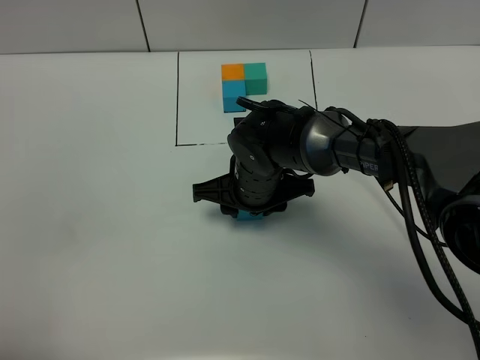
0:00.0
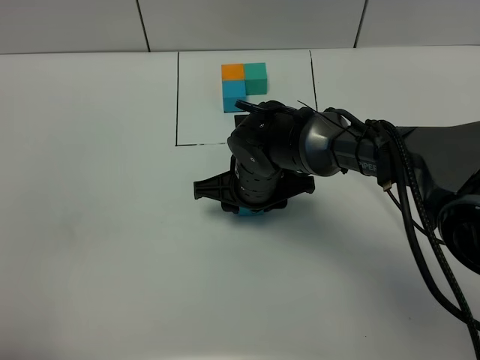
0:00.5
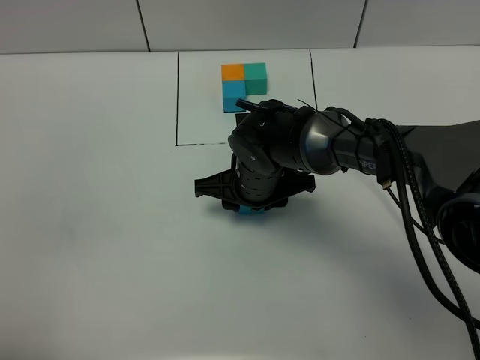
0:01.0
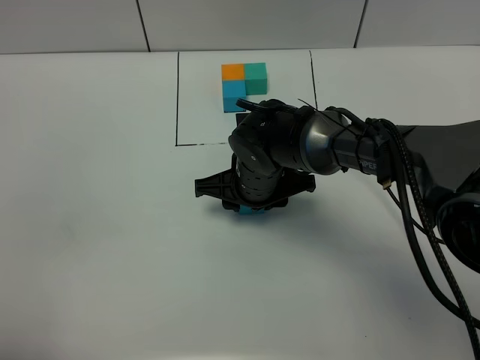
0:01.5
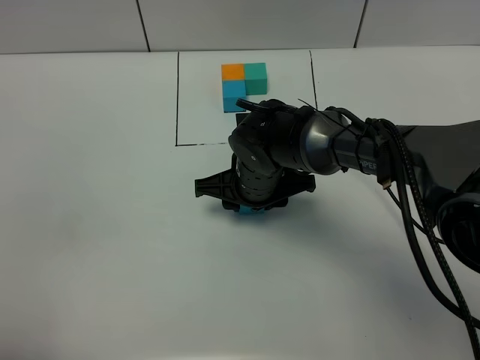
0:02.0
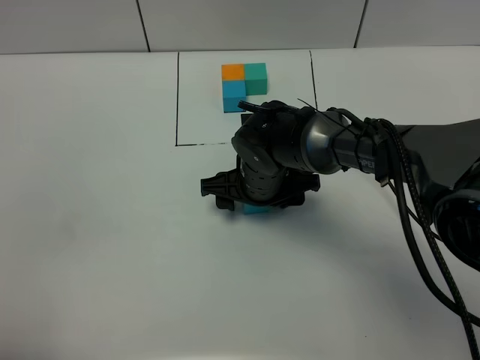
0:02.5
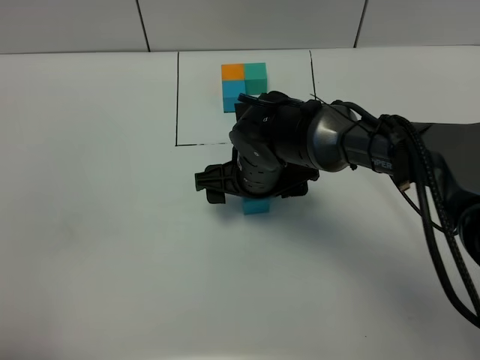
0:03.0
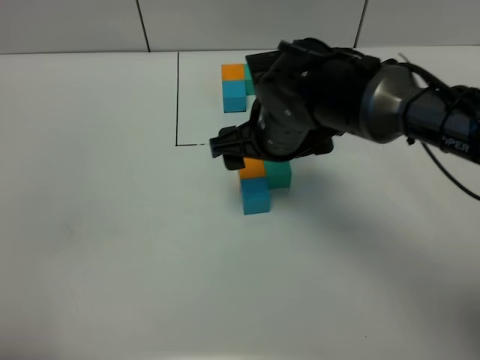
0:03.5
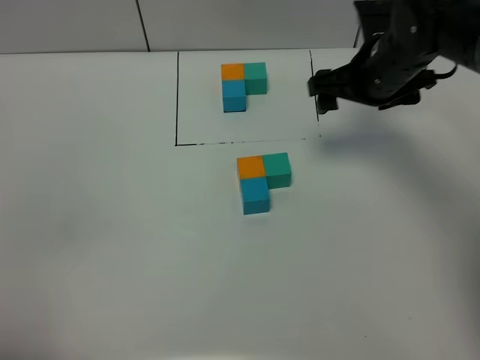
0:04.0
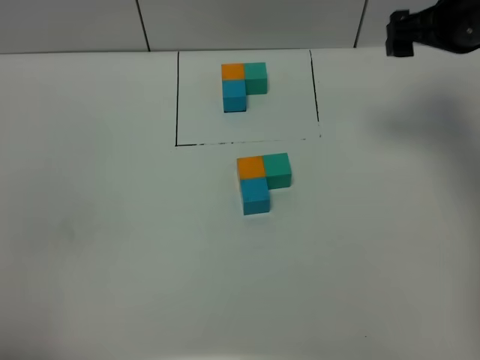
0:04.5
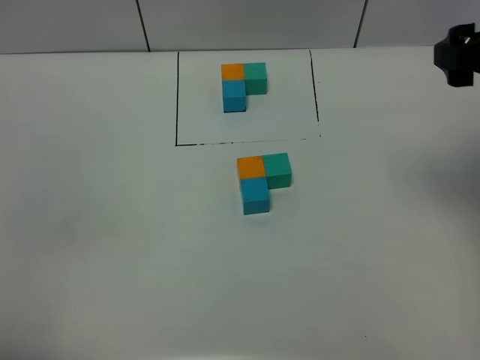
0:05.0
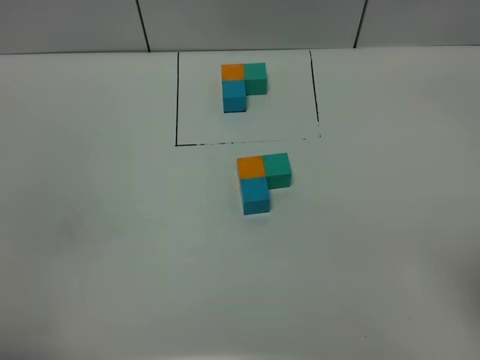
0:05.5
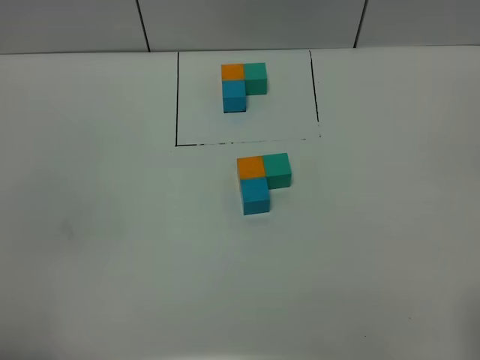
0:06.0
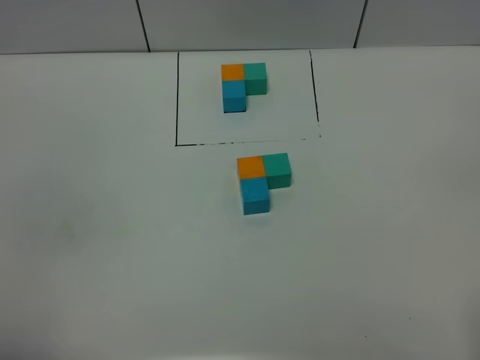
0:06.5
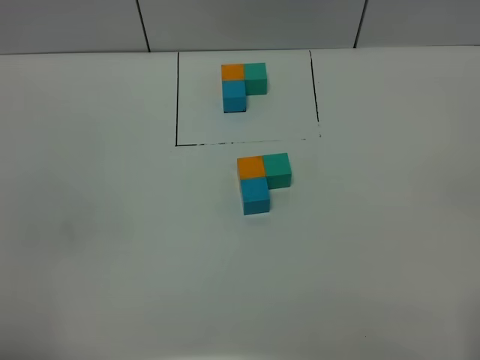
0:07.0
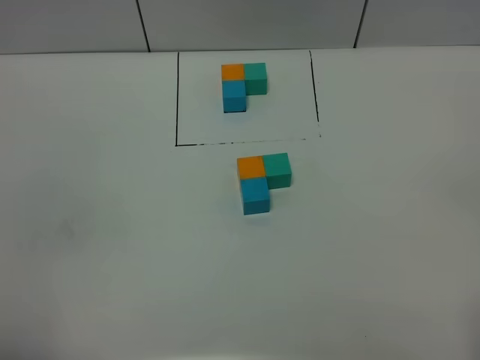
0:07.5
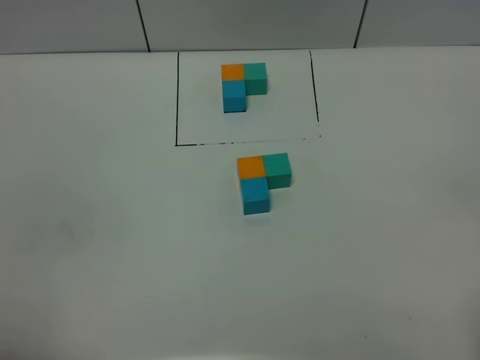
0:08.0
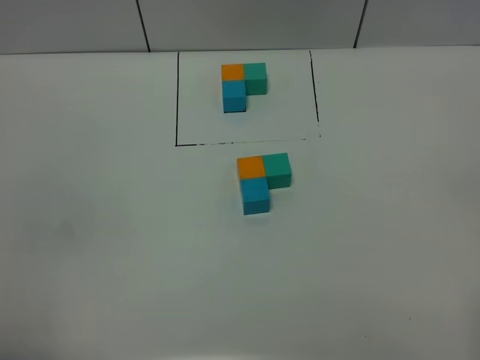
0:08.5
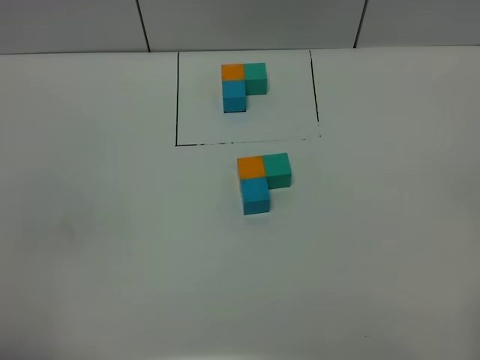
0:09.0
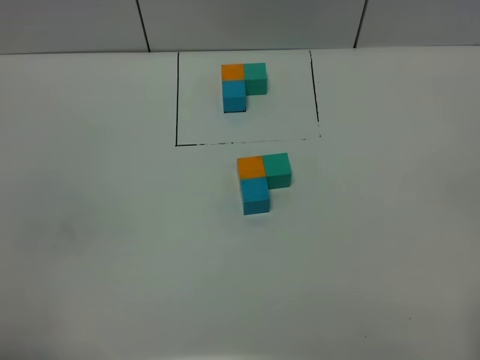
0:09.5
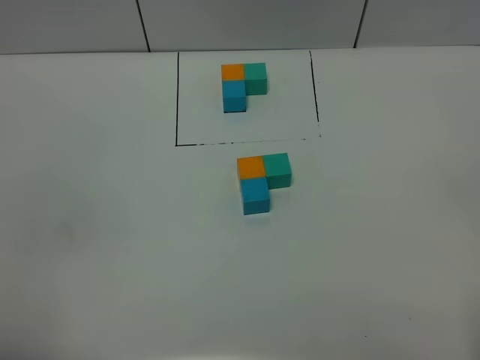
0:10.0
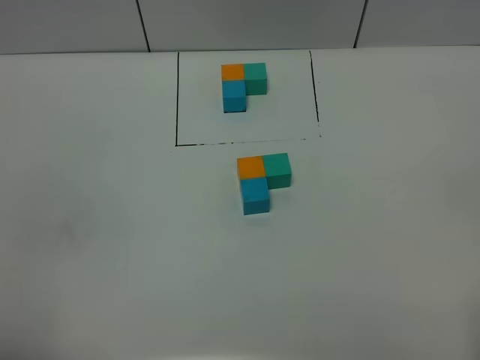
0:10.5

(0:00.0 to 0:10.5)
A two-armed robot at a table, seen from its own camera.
Task of the whole recording: According to the building block template in front, assemble the scattered blocks together.
Step, 0:00.0 - 0:02.5: Put the blue build block on the behind of the orange build block.
0:00.0 - 0:02.0: Neither gripper changes place.
0:02.0 - 0:04.0: The right gripper heads to the right, upward and forward, covering roughly 20 cm, and opens its fingers.
0:04.0 - 0:06.5: The right gripper is displaced backward by about 40 cm.

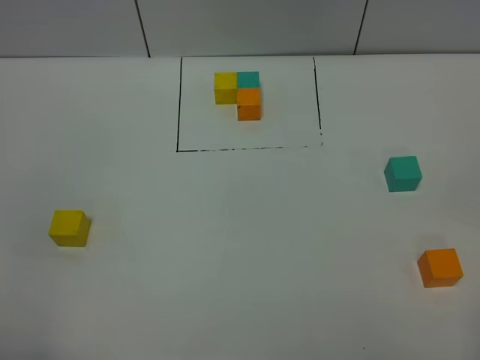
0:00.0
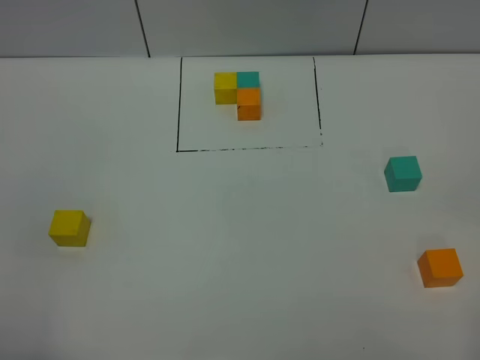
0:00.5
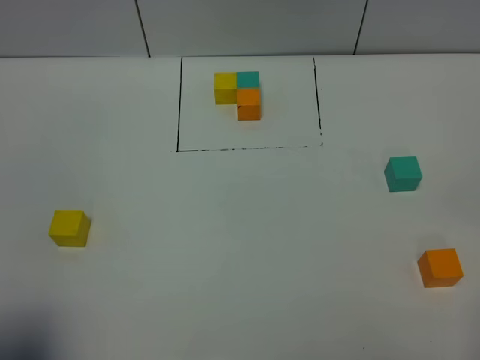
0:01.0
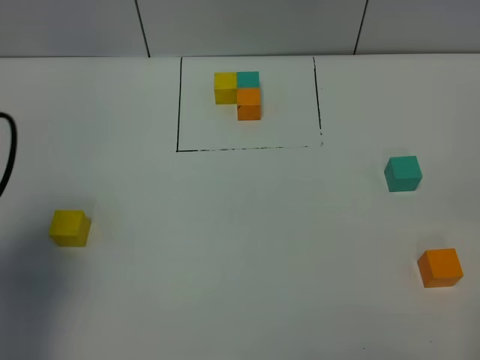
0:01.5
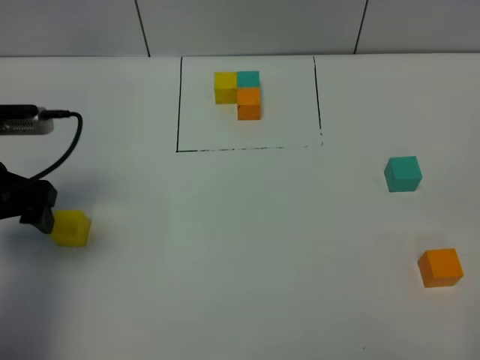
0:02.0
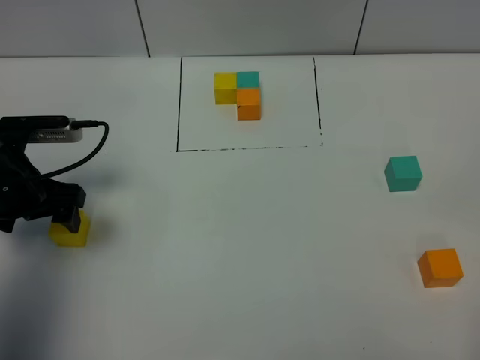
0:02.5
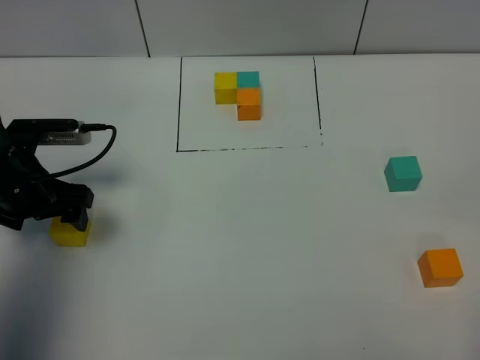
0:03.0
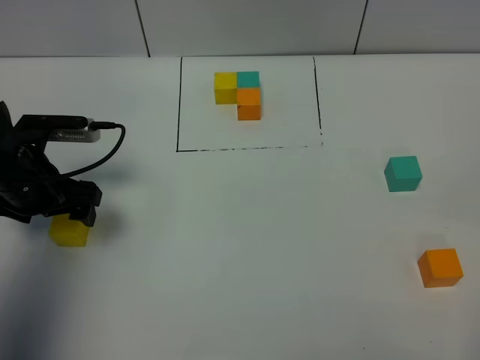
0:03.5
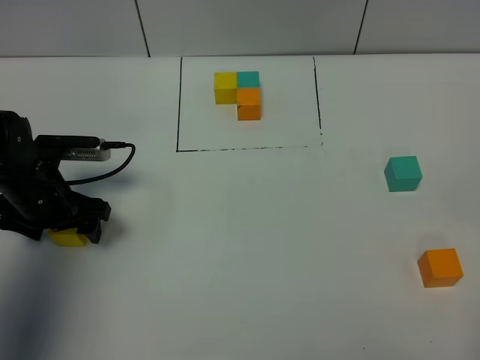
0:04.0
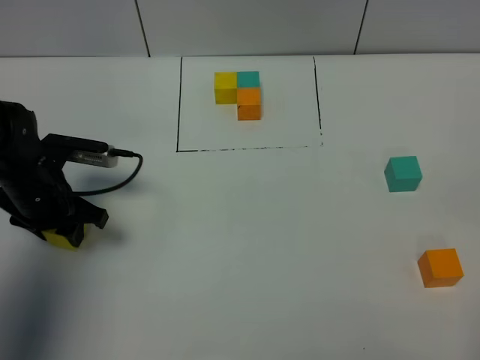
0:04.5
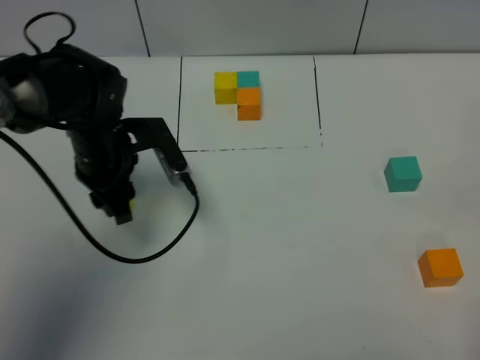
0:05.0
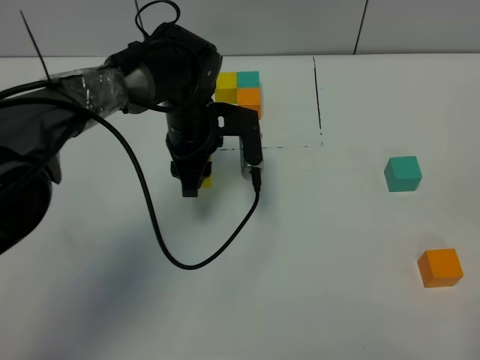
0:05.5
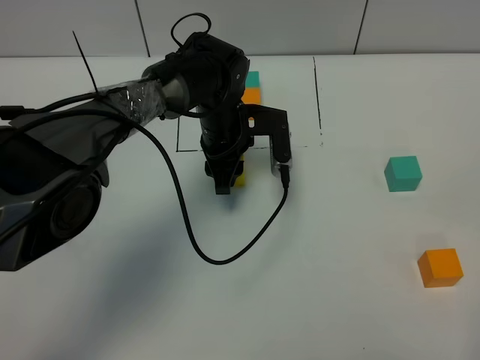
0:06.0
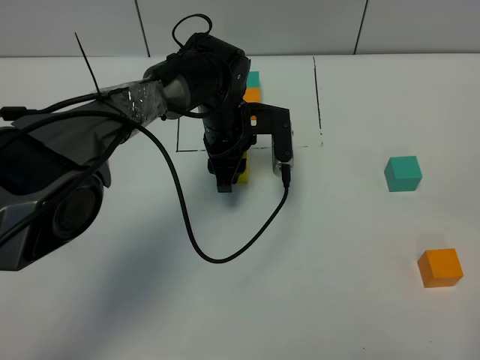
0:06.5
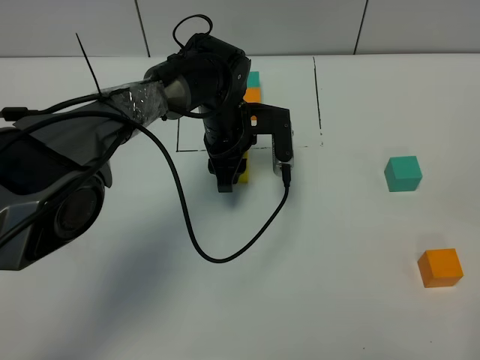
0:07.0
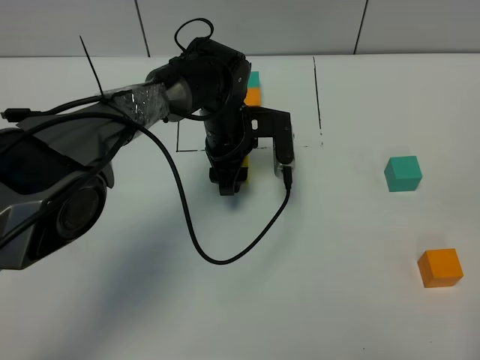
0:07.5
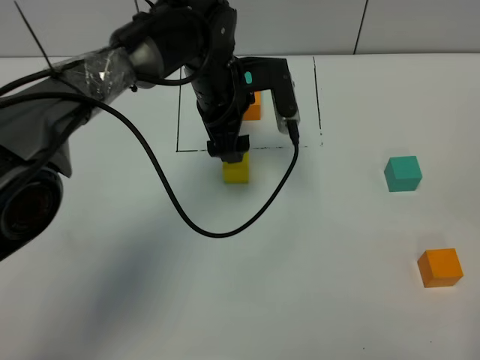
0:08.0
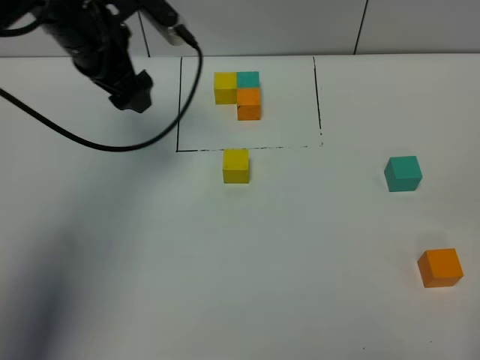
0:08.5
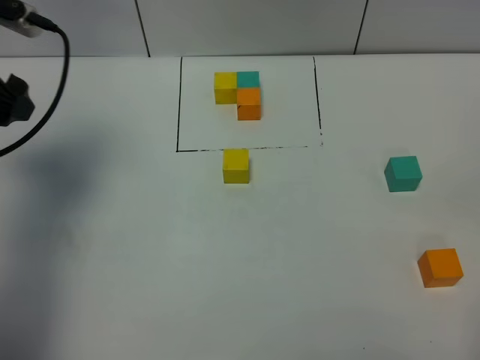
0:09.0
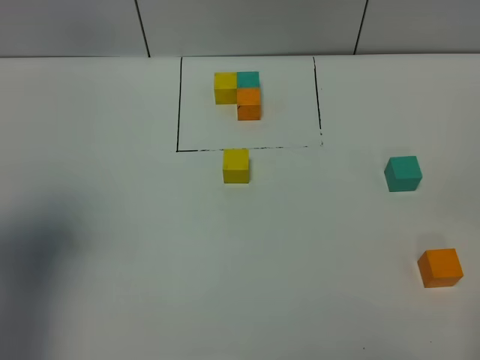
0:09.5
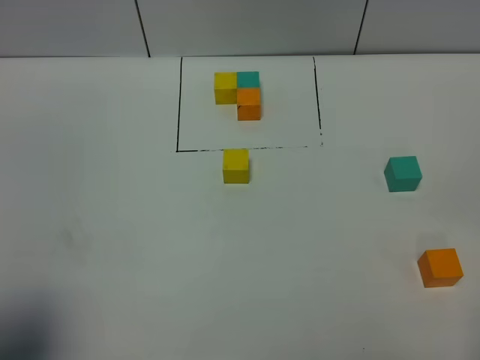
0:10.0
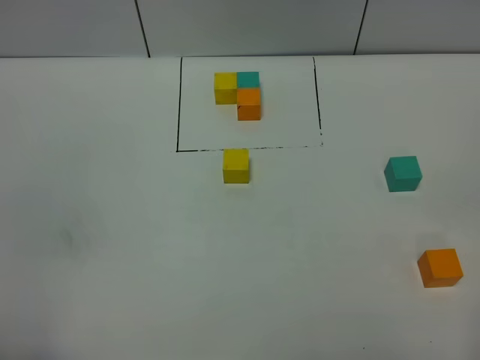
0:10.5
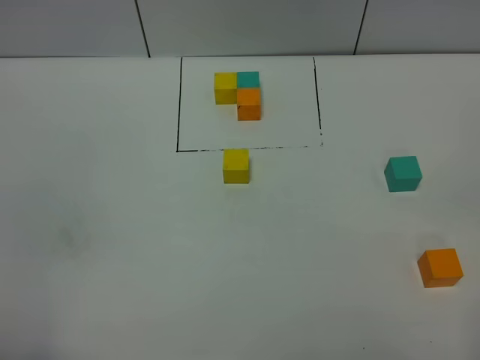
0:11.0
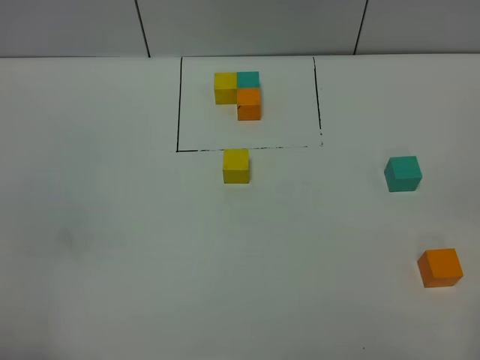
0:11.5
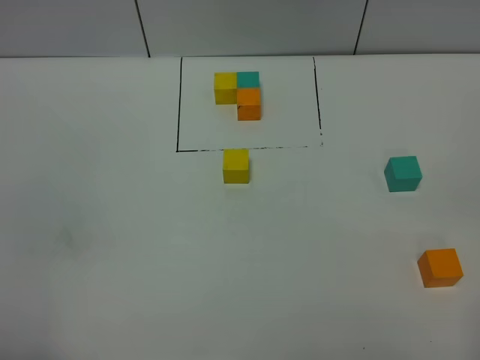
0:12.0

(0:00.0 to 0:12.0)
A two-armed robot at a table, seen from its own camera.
Task of the whole recording: According to the building block template in front, assemble the scattered blocks together.
Step, 0:00.0 - 0:07.0: Put the yellow build block in the center of the table.
0:00.0 - 0:02.0: The left gripper heads forward, covering approximately 30 cm.
0:02.0 - 0:04.0: The left gripper is displaced downward by roughly 10 cm.
0:04.0 - 0:06.0: The left gripper travels to the right and forward by approximately 25 cm, and closes.
0:06.0 - 0:08.0: The left gripper is displaced upward by about 10 cm, and opens.
0:08.0 - 0:10.0: The left gripper shifts about 40 cm backward and to the left.
0:10.0 - 0:12.0: The left gripper travels backward by some 5 cm.

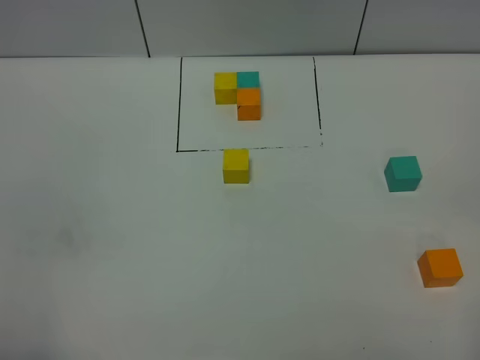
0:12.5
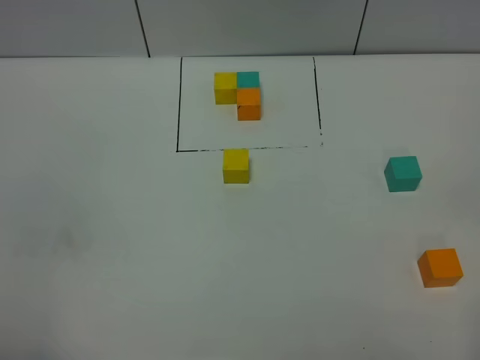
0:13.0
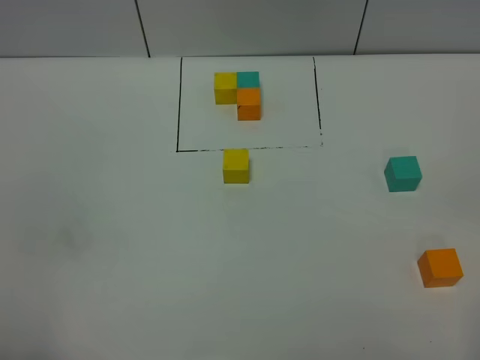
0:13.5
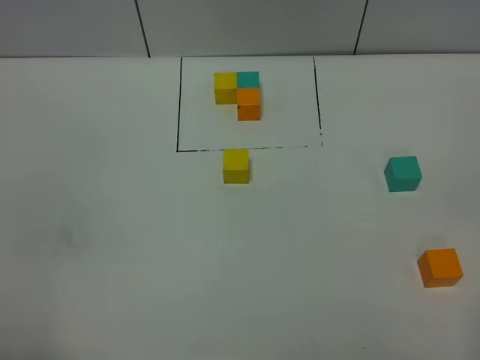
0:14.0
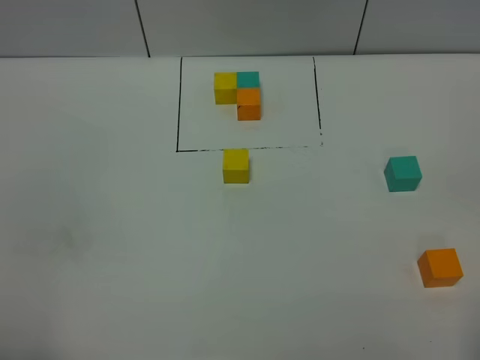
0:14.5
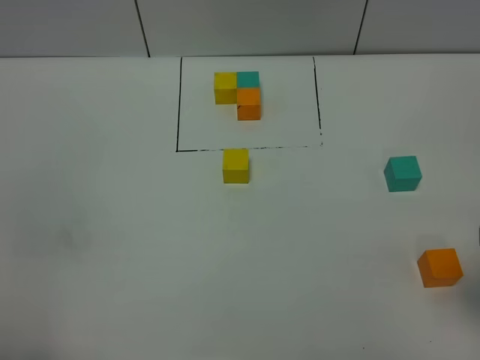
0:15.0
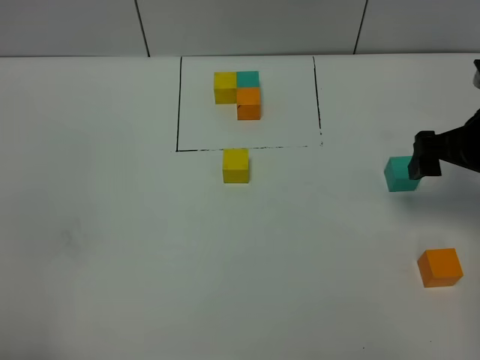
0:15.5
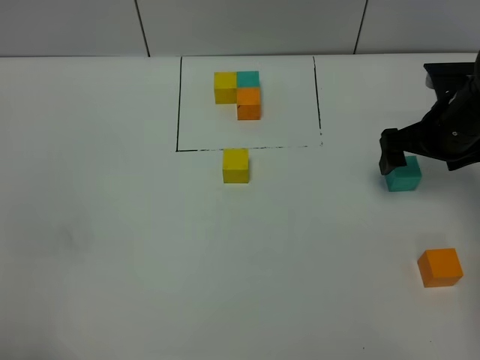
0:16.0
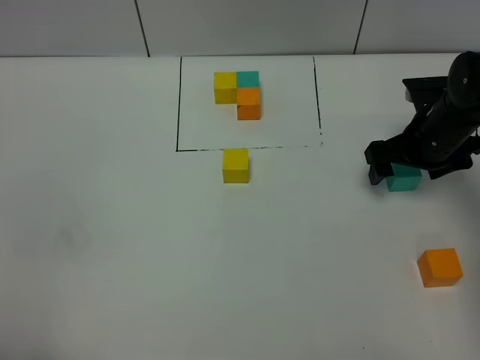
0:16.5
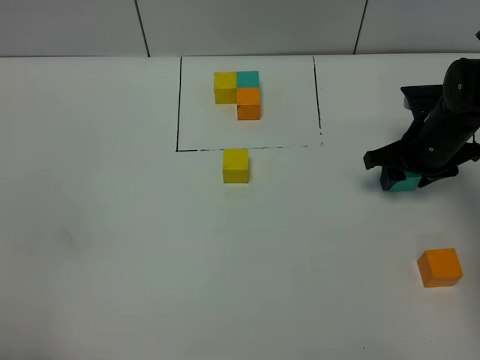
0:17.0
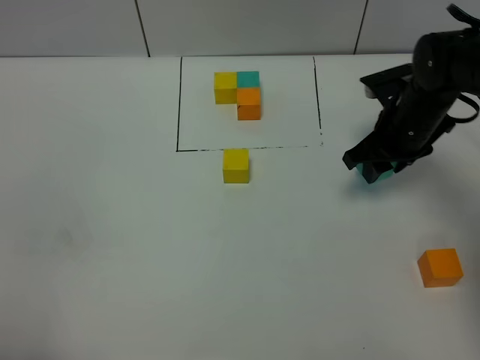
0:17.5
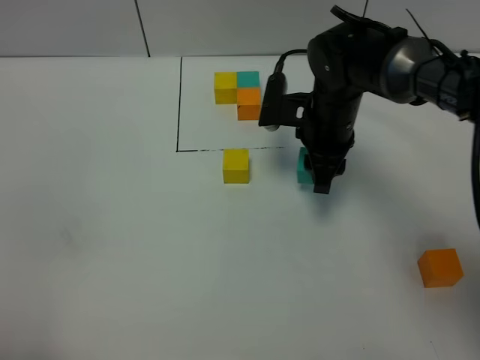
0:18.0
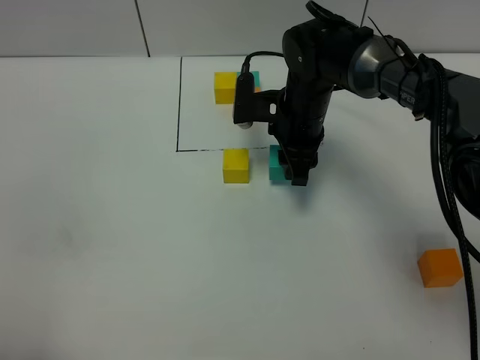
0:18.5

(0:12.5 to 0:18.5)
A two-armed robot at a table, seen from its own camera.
Task of the whole recording: According to the building block template in front, assemble the scattered blocks together.
0:14.5 - 0:16.5: The right gripper shifts approximately 40 cm forward and downward.
0:16.5 - 0:18.5: The right gripper moves to the left, roughly 20 cm, and closes its fingers.
